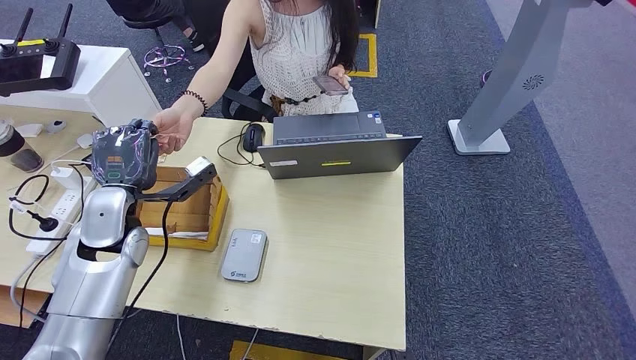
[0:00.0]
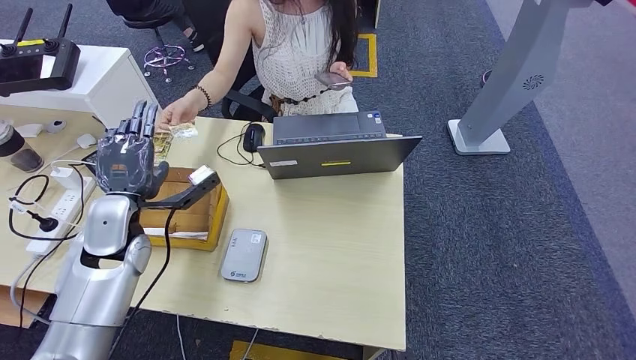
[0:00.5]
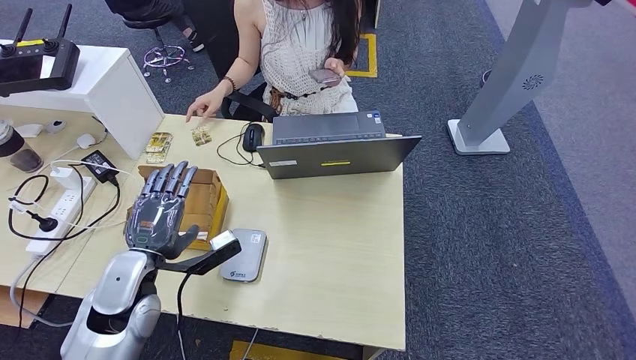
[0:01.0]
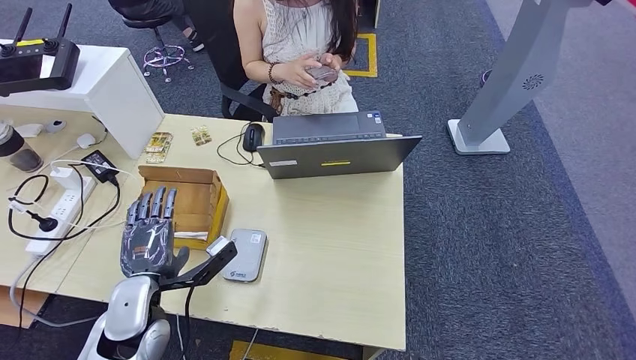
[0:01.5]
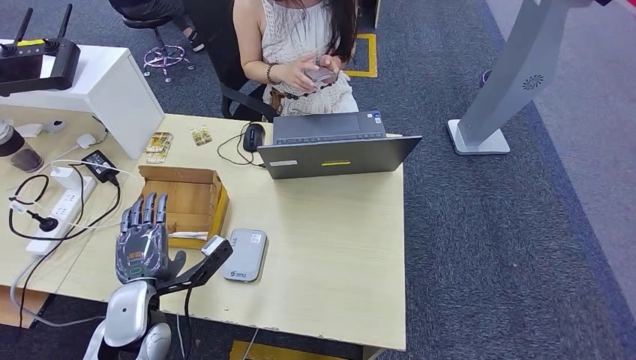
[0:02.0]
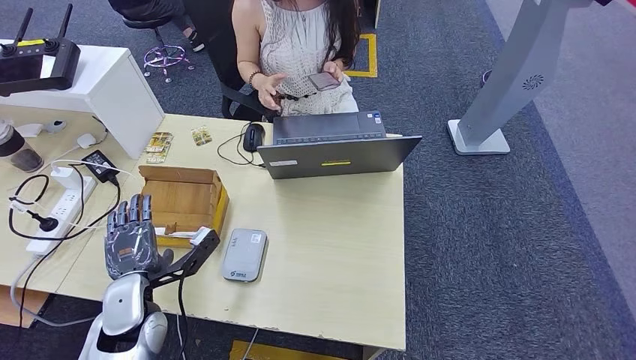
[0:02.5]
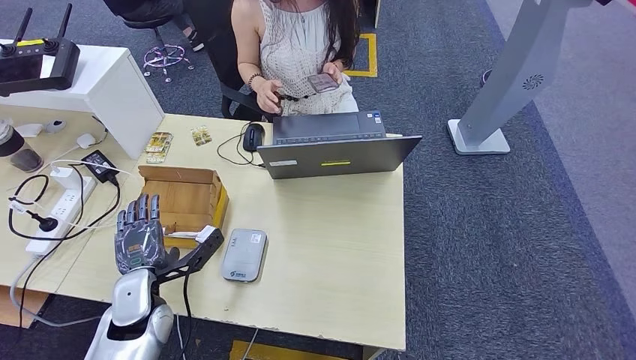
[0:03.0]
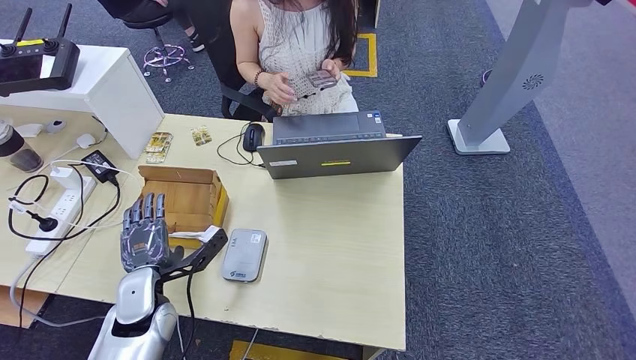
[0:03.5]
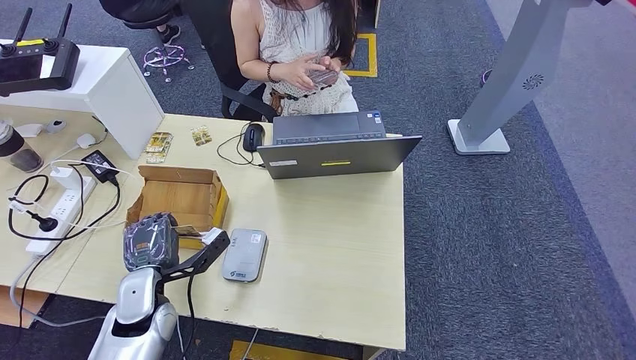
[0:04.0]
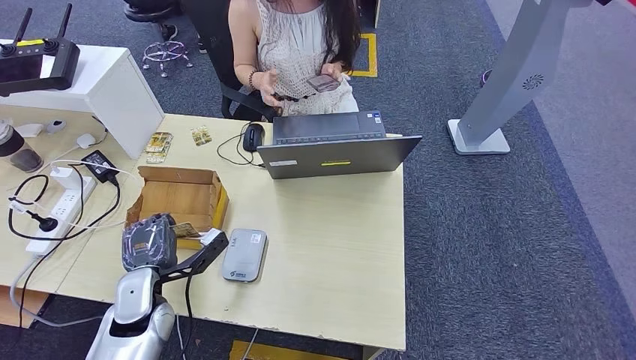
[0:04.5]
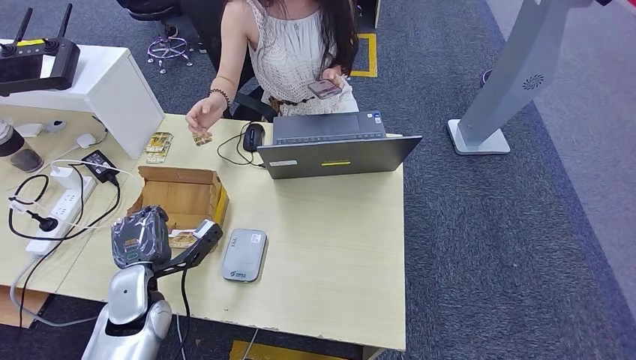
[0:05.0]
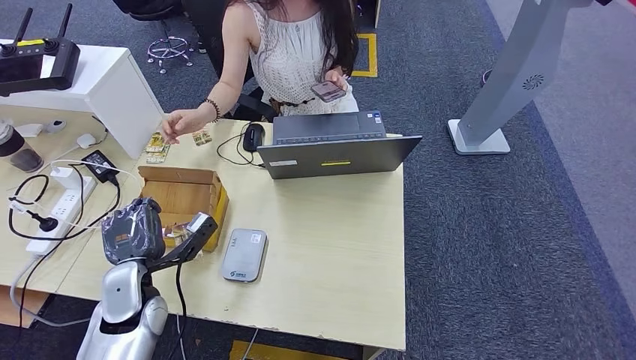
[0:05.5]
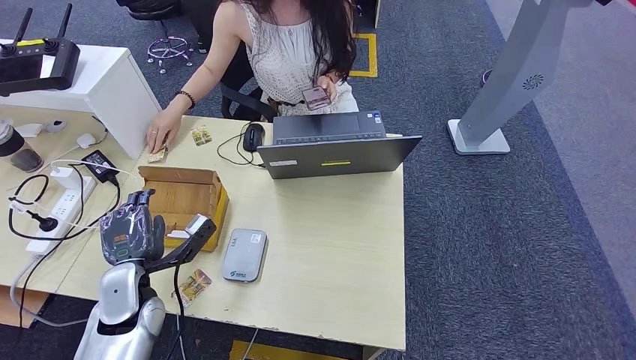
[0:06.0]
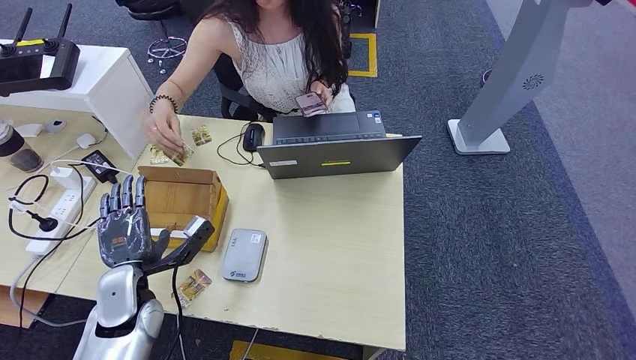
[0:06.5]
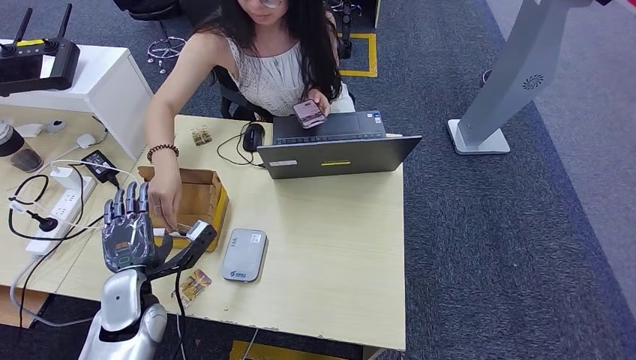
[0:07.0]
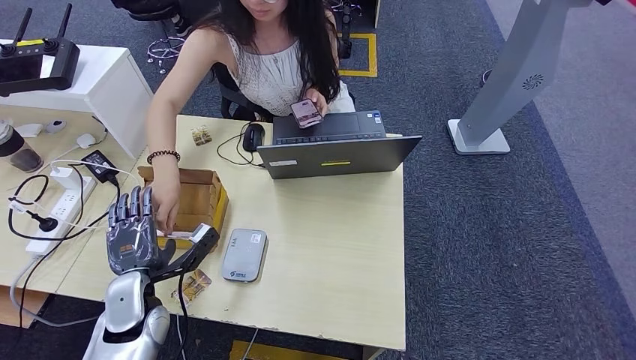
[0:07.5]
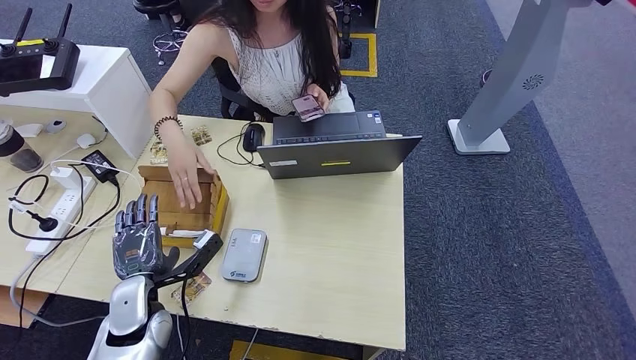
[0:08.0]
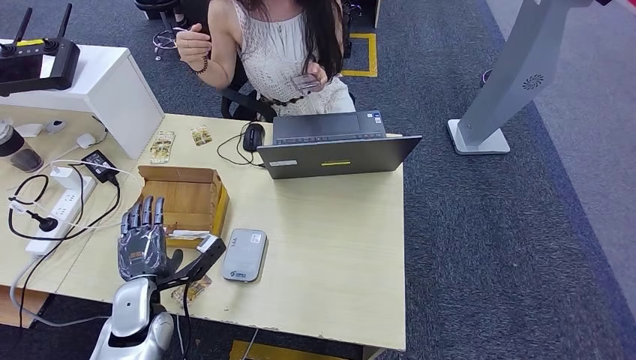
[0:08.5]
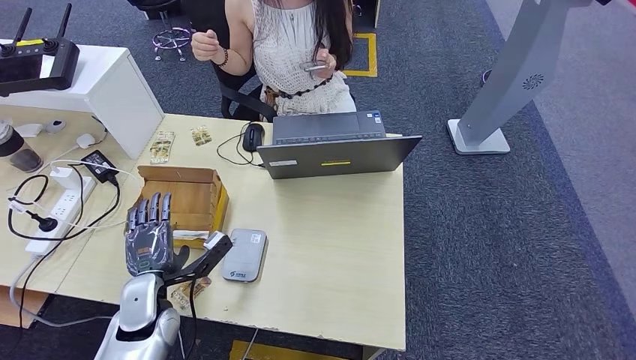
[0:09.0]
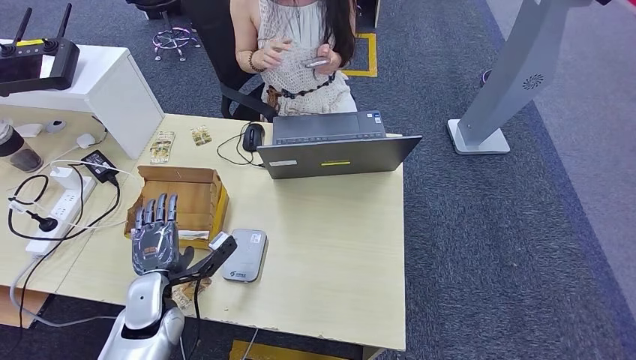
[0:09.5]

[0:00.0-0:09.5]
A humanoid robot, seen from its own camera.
Step, 0:00.0 to 0:01.5: Hand the ID card to the person.
0:00.0 to 0:02.0: The left hand travels backward, downward and to the right by some 15 cm.
0:02.0 to 0:09.5: The hands make only small movements.

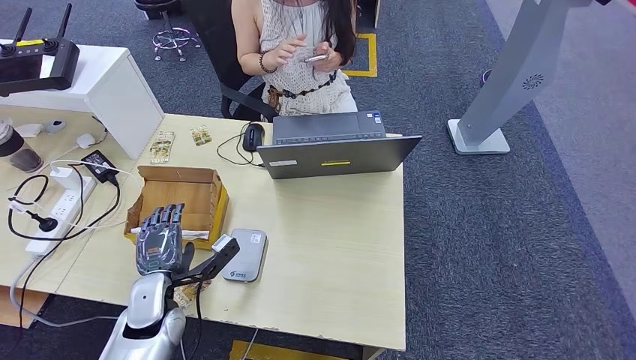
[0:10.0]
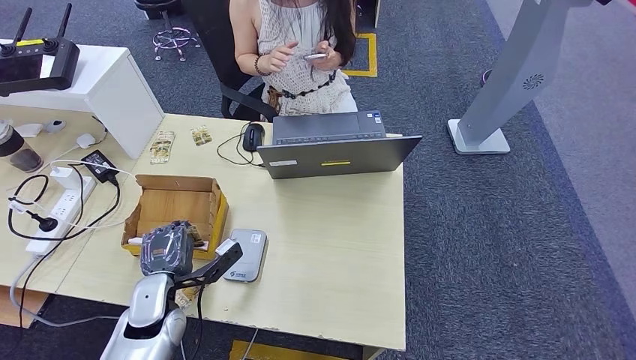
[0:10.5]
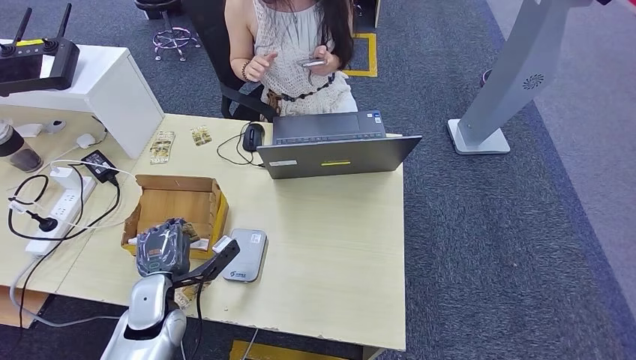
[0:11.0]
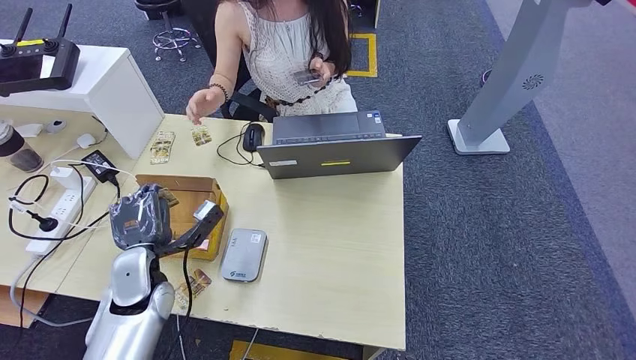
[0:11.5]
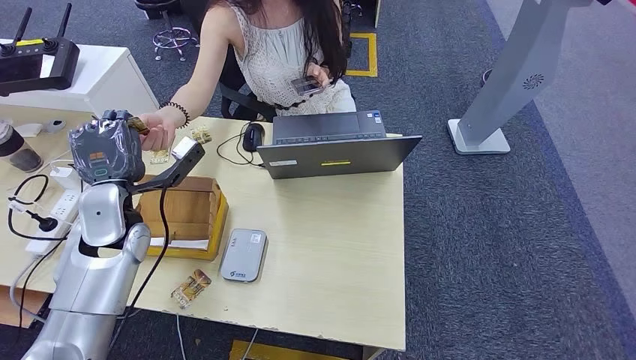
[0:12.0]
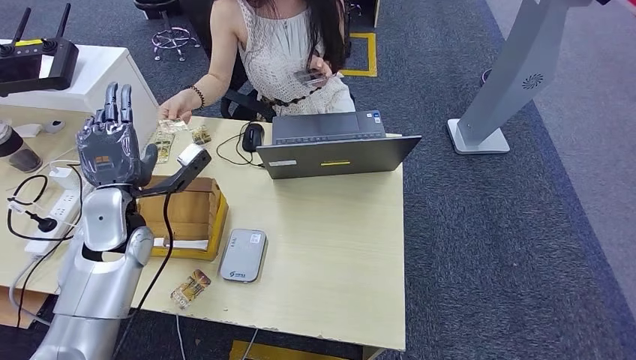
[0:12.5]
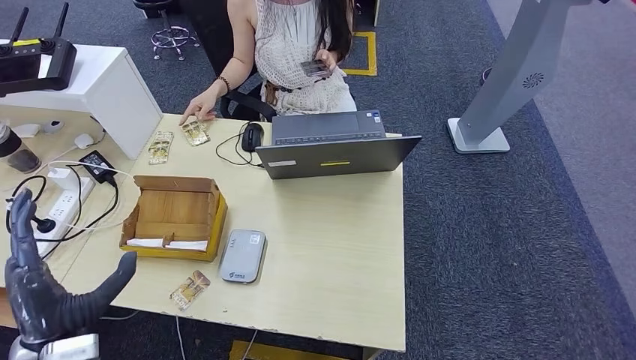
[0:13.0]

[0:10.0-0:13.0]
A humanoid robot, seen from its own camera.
Step, 0:11.5 to 0:13.0: Hand the room key to the person.
0:10.0 to 0:11.5: The left hand shifts by approximately 5 cm.
0:11.5 to 0:13.0: The left hand goes roughly 15 cm backward and upward.
